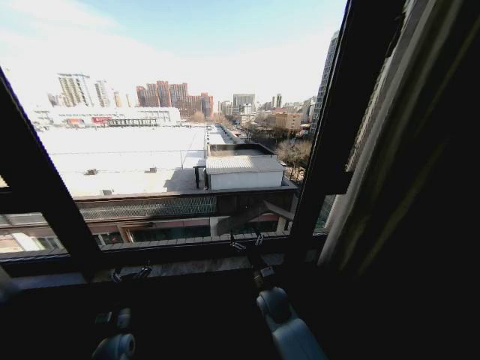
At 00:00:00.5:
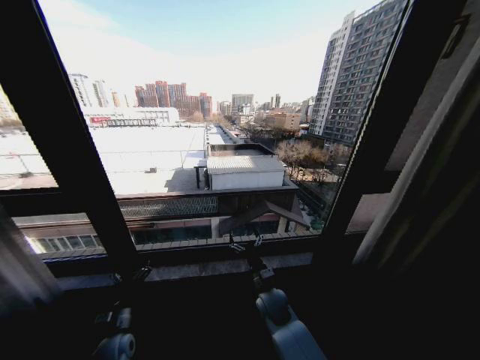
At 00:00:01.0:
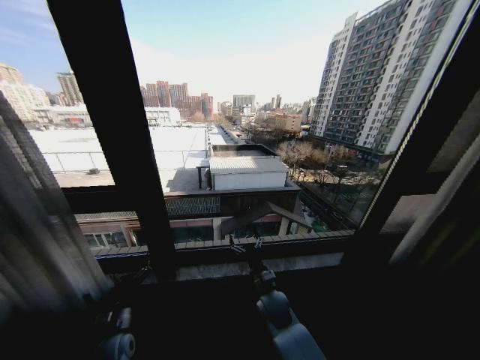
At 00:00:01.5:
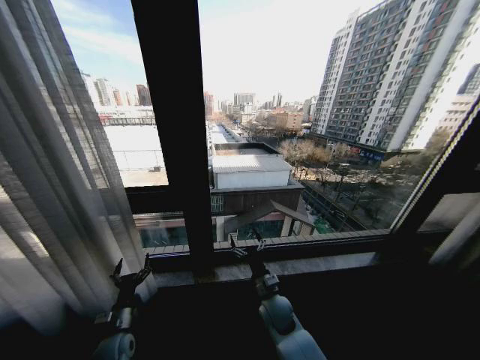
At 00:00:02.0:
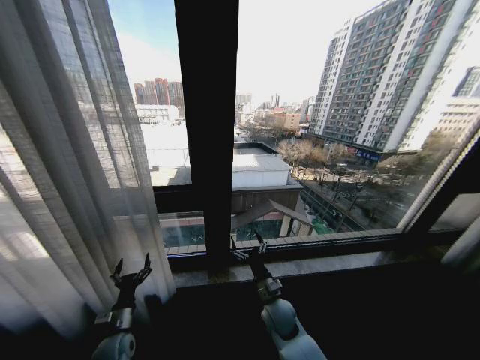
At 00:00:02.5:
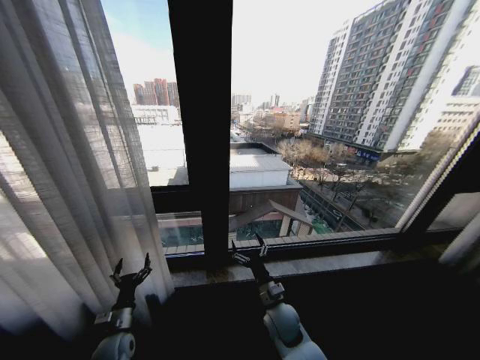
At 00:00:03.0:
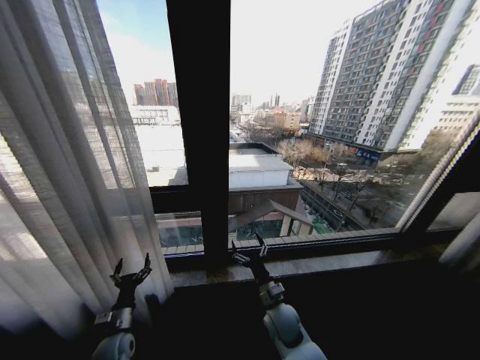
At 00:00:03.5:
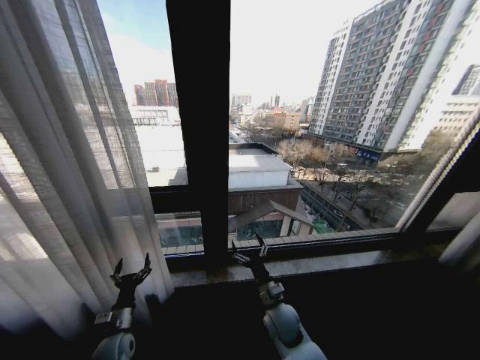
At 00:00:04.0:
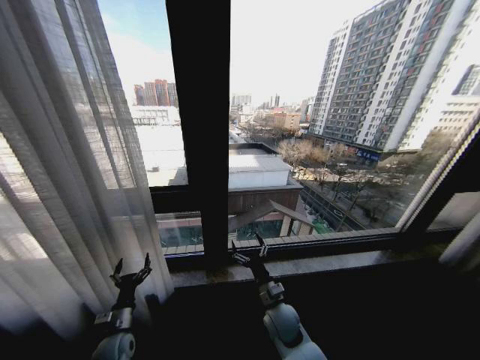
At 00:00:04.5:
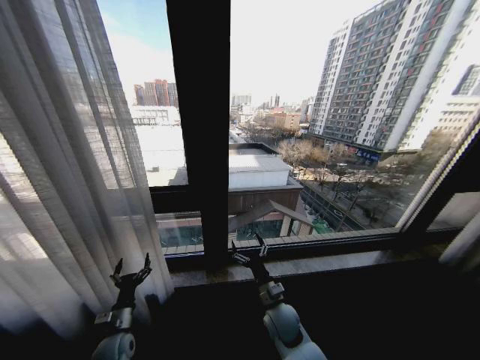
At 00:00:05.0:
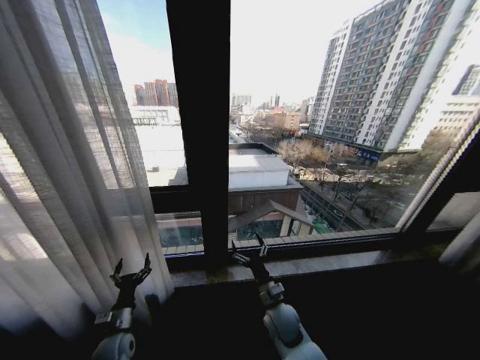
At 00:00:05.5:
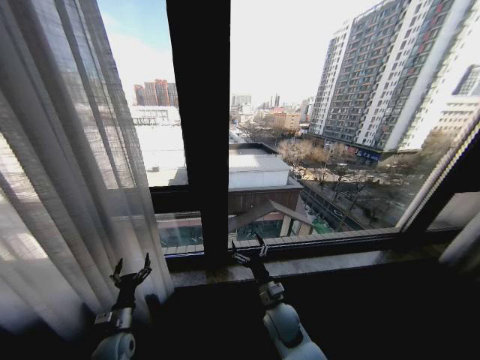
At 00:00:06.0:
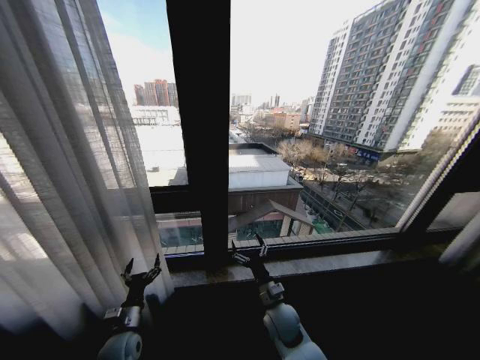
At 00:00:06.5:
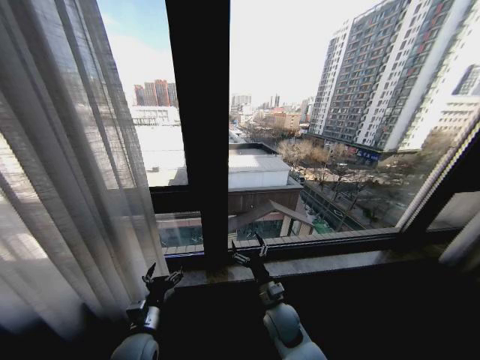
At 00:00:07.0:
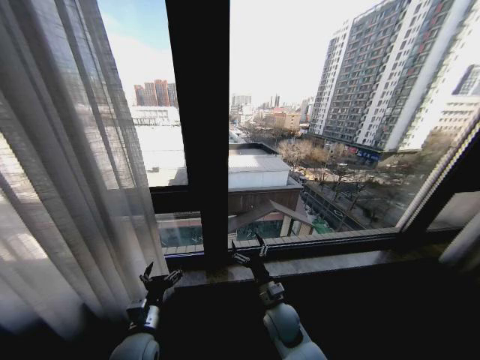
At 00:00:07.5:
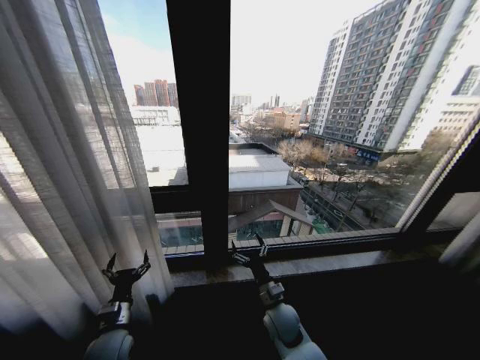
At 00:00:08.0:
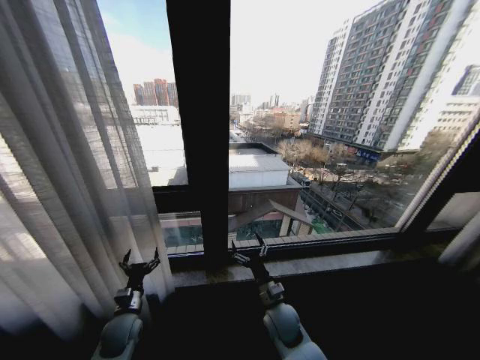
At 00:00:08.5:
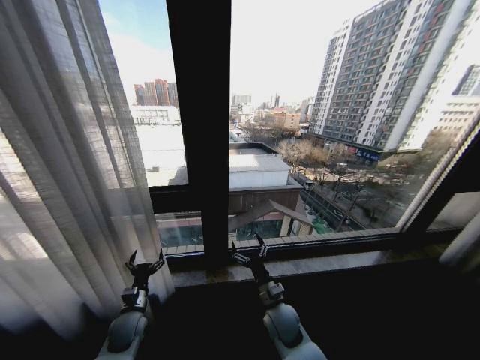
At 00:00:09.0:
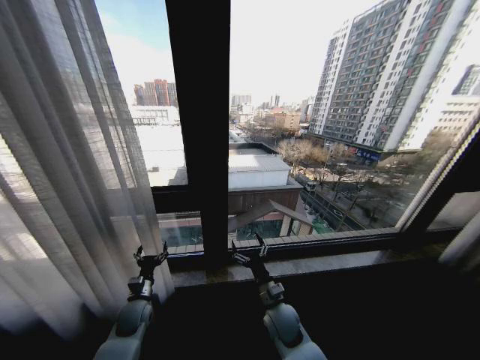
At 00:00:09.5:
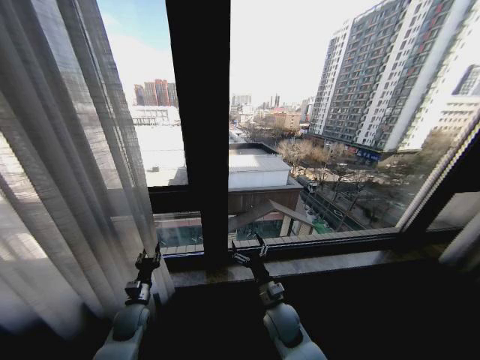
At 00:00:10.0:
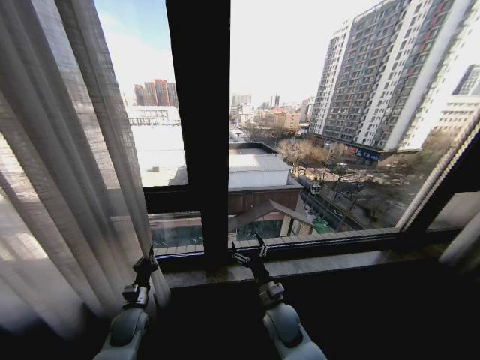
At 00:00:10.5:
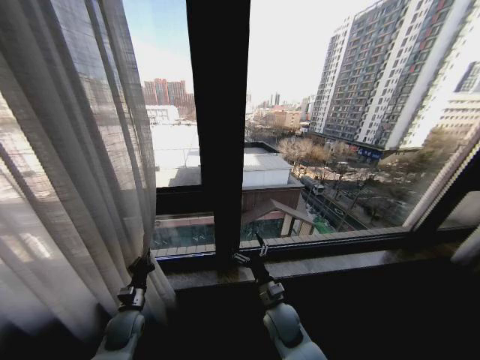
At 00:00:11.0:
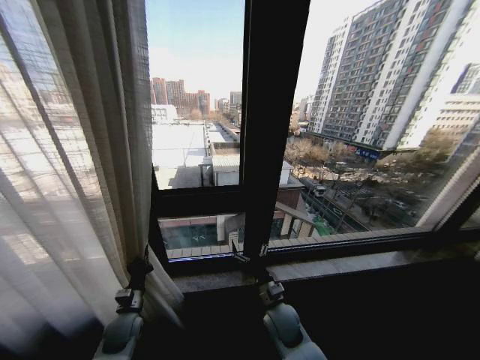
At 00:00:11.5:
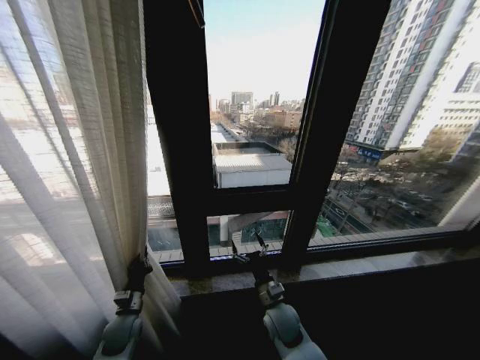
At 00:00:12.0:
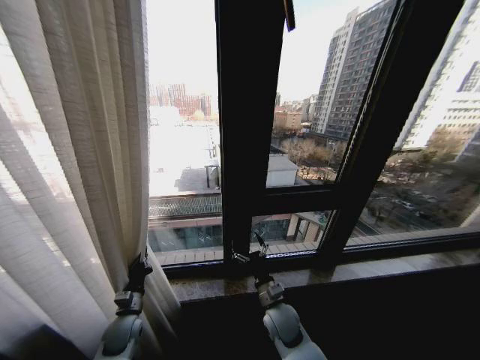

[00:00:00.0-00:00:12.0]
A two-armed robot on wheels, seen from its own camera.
Task of the whole recording: Open the curtains by pulling them apart, changing their state from closed to fully open.
00:00:02.0 to 00:00:06.0: There are only small adjustments of the grippers.
00:00:06.0 to 00:00:08.0: The left gripper travels to the right and back again, roughly 10 cm each way.
00:00:08.0 to 00:00:10.0: The left gripper closes its fingers.

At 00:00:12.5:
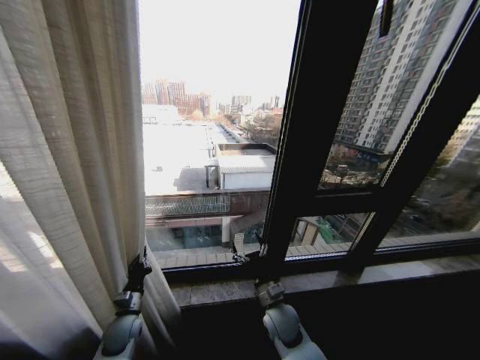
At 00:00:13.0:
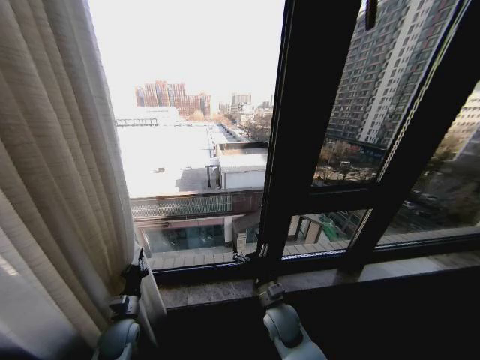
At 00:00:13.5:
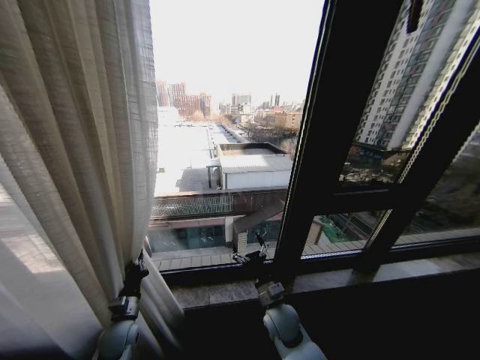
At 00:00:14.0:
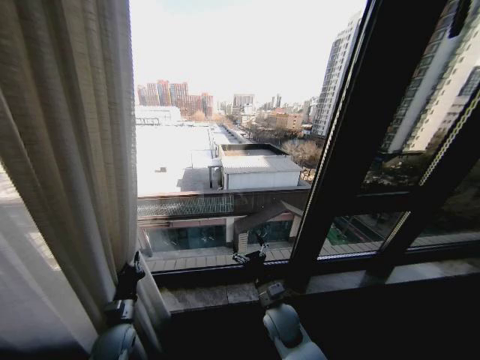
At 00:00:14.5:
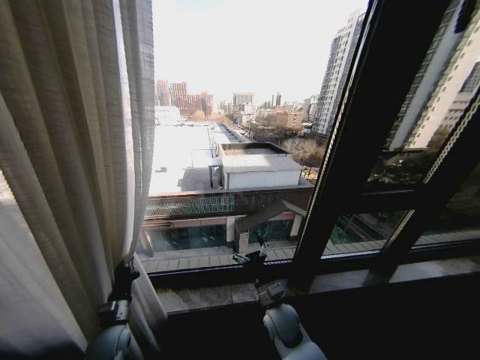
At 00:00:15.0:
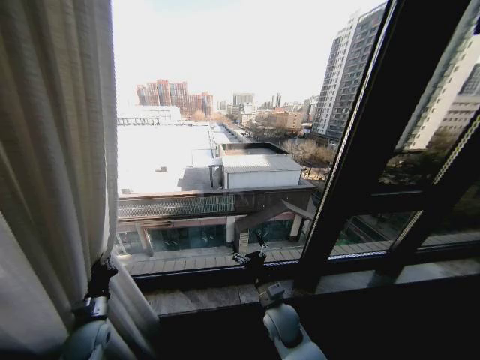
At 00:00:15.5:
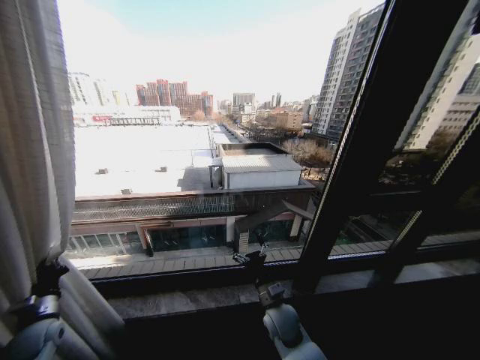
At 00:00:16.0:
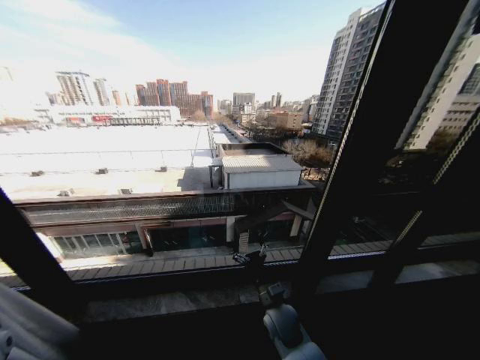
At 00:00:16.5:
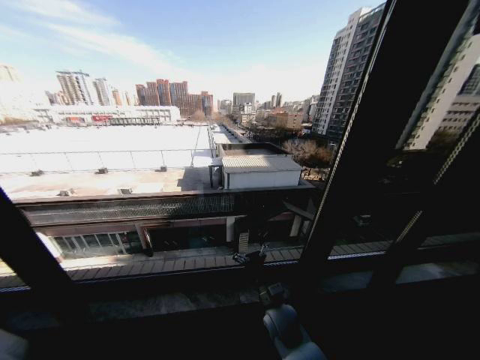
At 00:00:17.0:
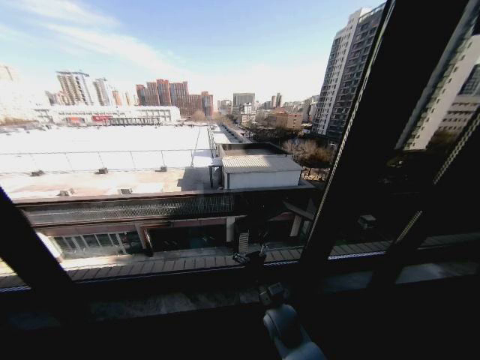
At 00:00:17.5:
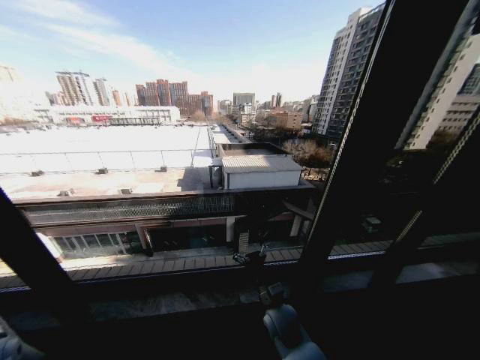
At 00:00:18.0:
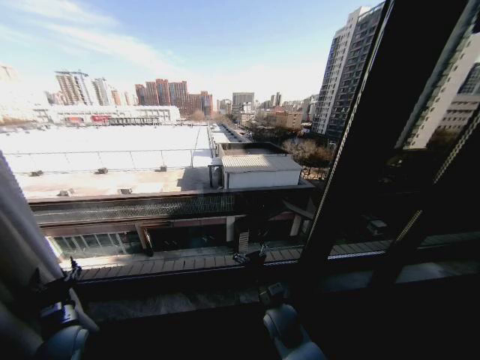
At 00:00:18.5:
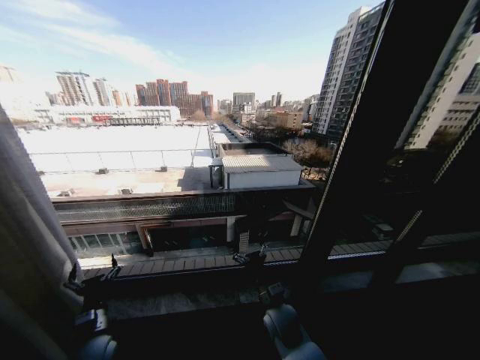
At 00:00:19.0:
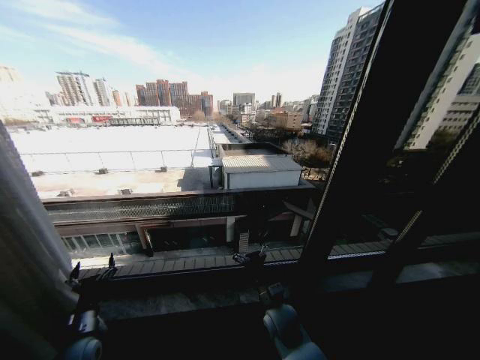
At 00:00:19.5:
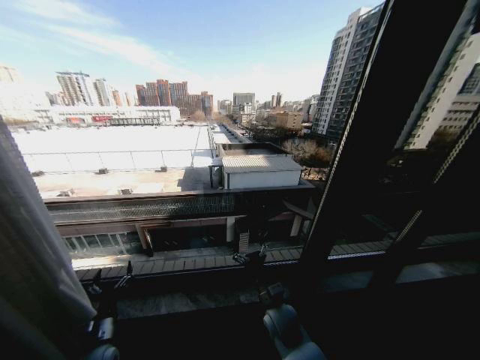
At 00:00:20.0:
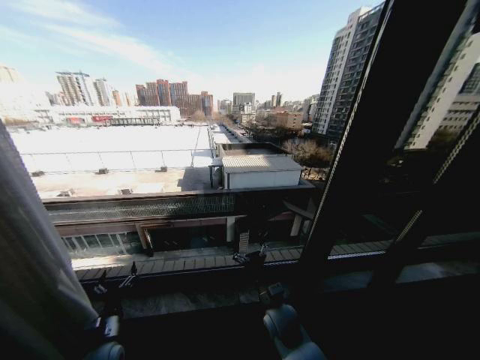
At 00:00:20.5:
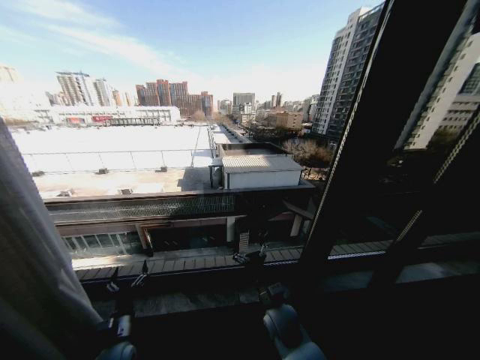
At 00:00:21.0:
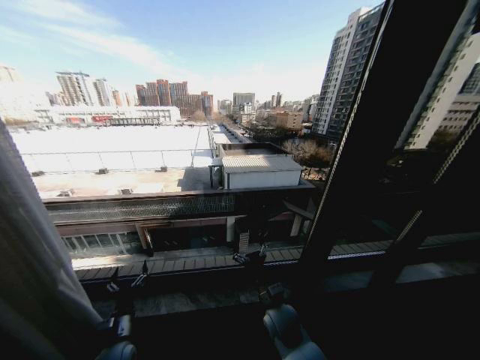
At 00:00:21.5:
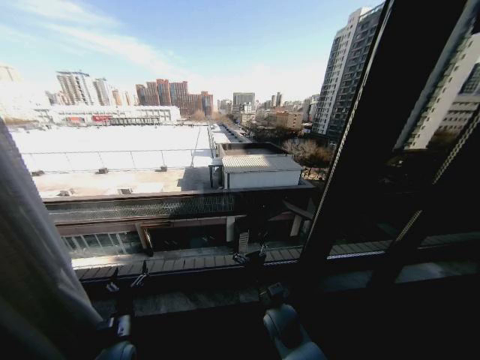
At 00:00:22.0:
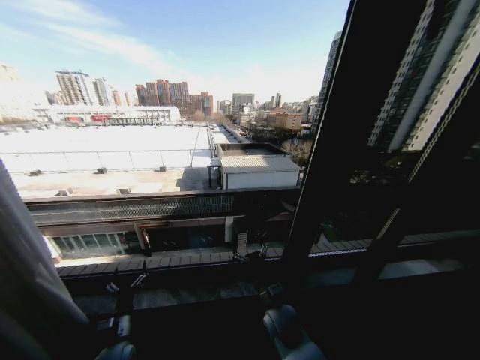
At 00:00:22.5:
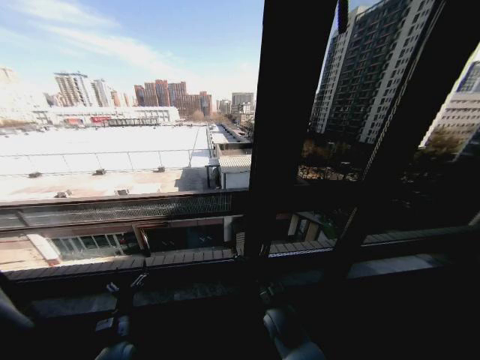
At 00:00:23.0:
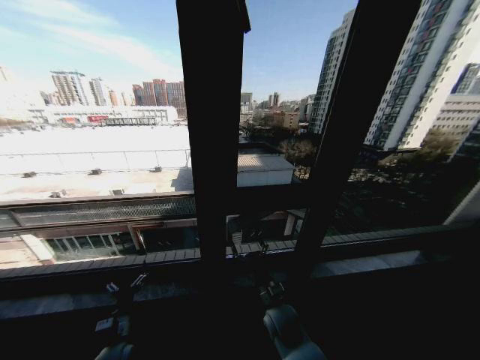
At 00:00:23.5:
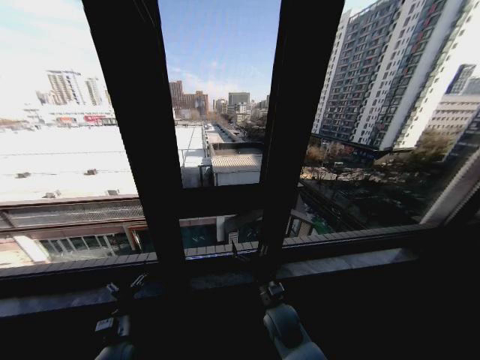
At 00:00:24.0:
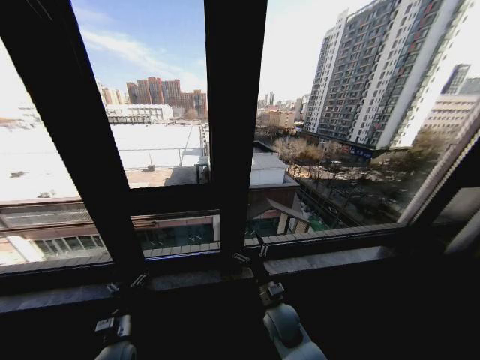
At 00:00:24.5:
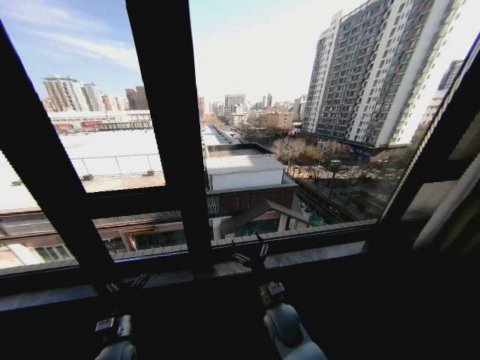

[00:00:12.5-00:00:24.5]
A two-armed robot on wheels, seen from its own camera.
Task of the whole recording: Open the curtains by pulling them apart, changing their state from closed to fully open.
00:00:14.5 to 00:00:16.5: The left gripper shifts roughly 30 cm to the left.
00:00:16.5 to 00:00:18.5: The left gripper heads to the right, covering about 30 cm, and opens up.
00:00:18.5 to 00:00:20.5: The left gripper is displaced downward by roughly 5 cm.
